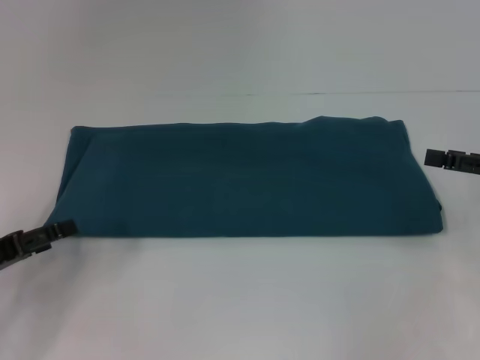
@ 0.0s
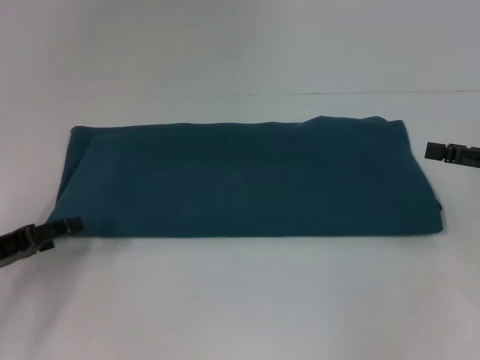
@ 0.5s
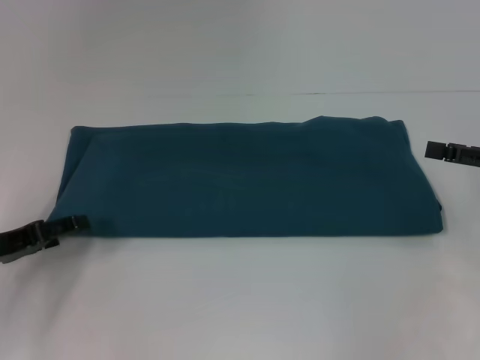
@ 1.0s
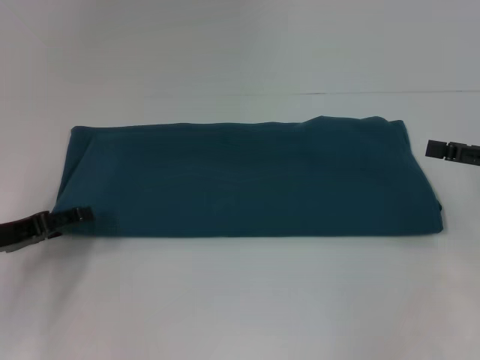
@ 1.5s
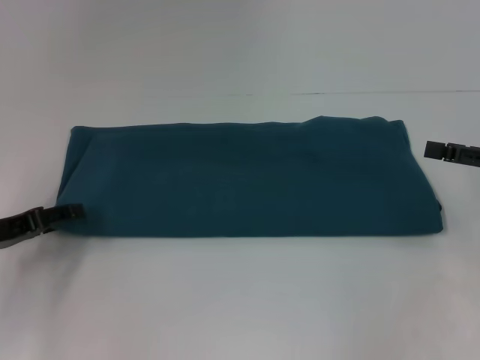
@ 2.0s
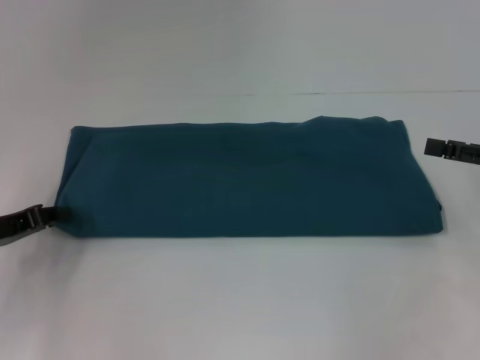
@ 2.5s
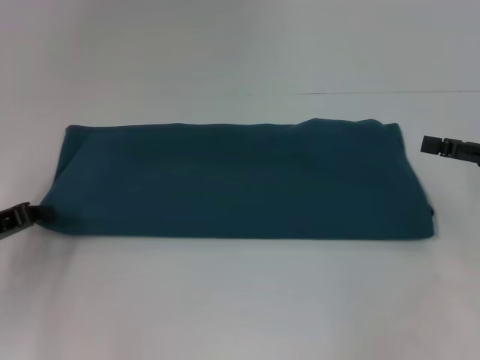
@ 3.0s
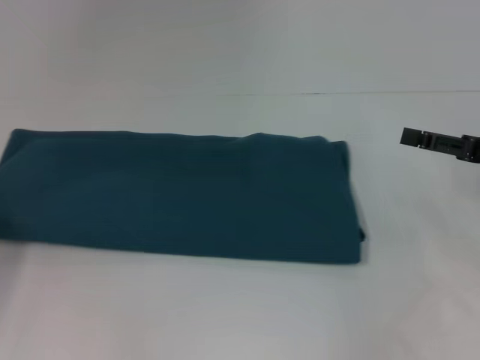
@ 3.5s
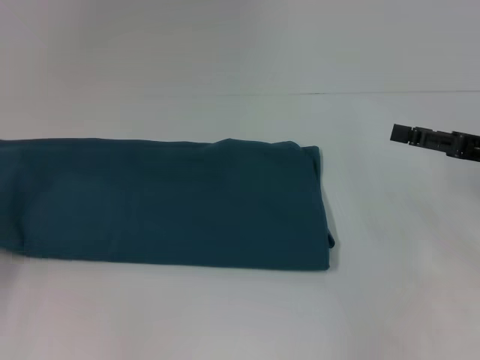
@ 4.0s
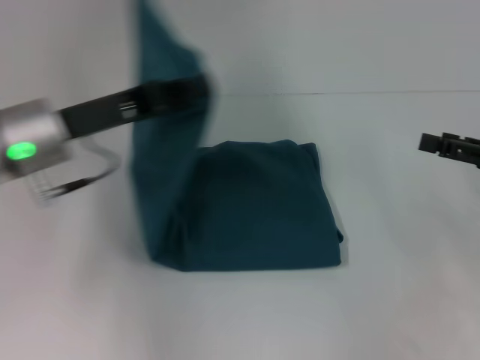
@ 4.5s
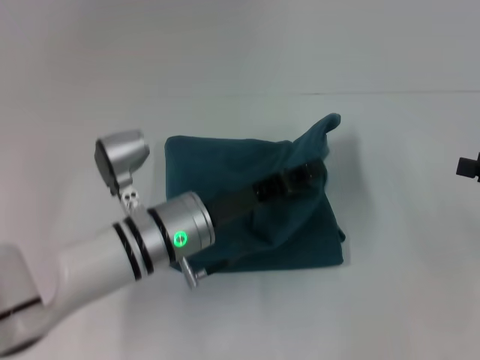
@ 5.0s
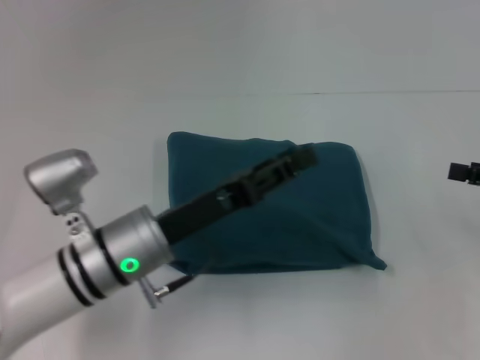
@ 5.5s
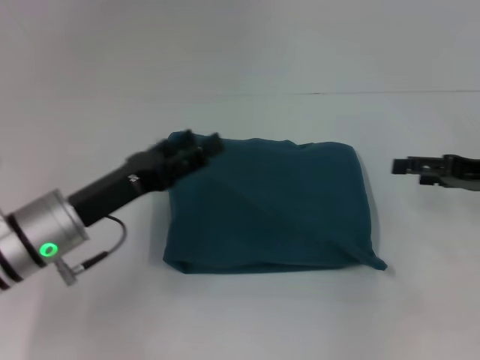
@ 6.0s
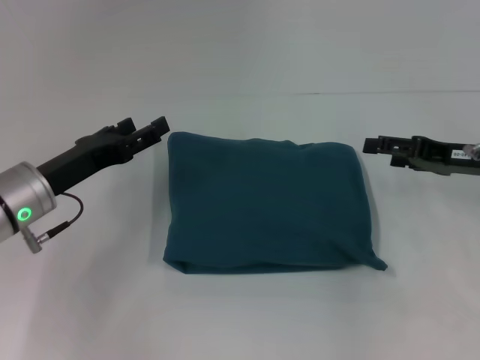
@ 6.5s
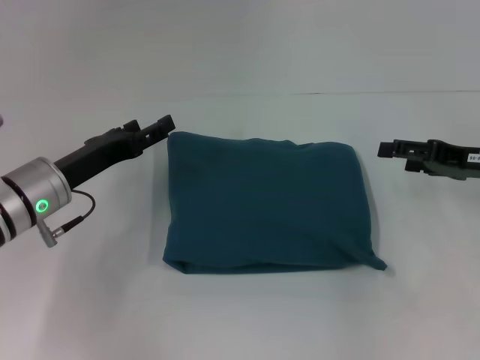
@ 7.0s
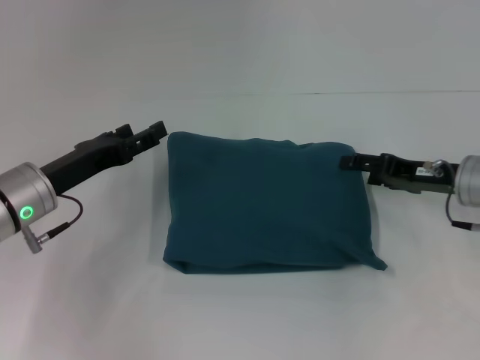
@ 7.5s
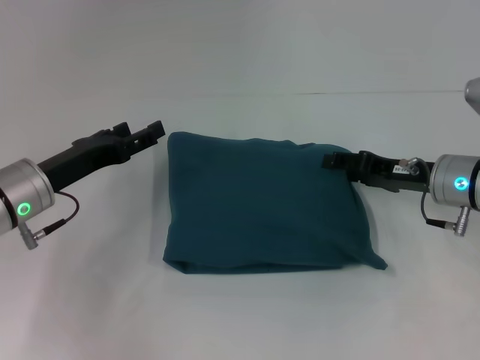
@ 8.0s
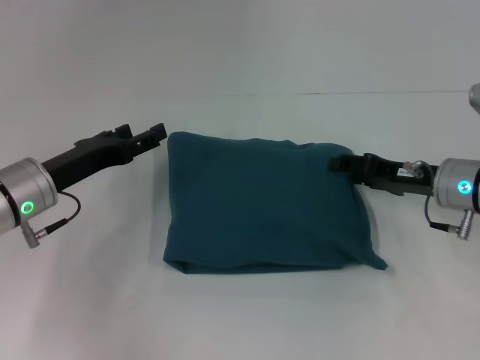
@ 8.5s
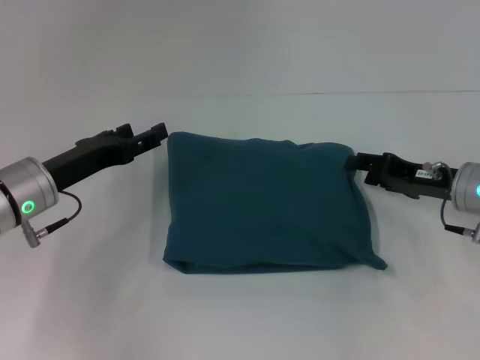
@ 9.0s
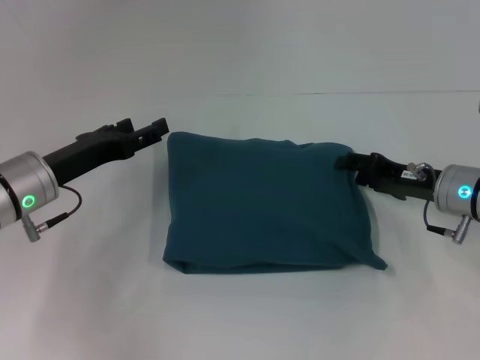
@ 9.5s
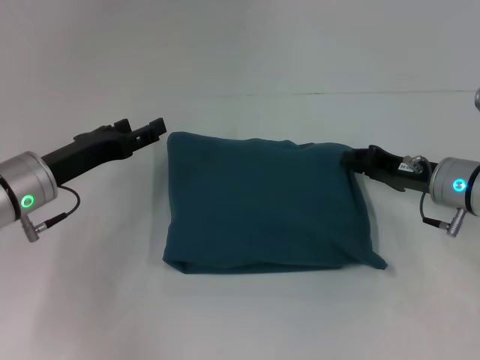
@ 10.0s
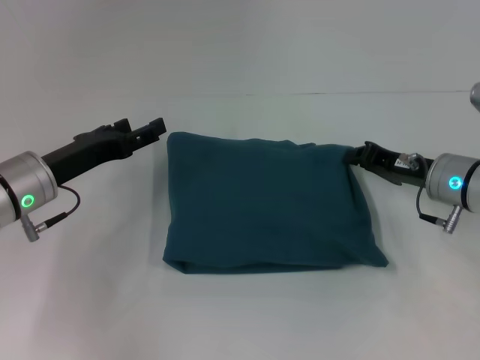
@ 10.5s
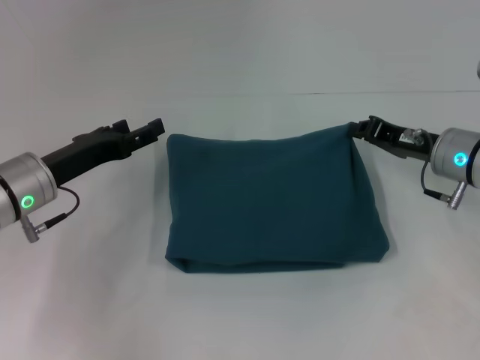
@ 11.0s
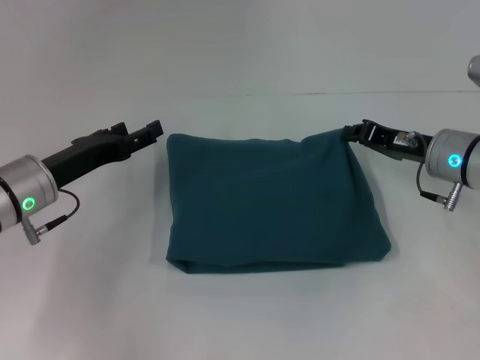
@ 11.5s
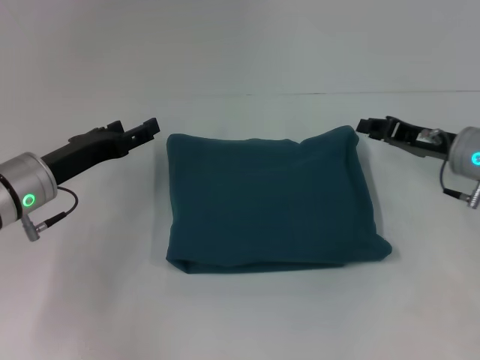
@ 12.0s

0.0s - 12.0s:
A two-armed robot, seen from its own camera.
Step, 0.0s - 5.0s: Fold the clothes to the left.
0.0s - 2.0s: The left gripper moves about 5 cm.
2.0s - 4.0s: The left gripper goes about 10 cm to the left, and closes up.
4.0s - 6.0s: The left gripper shifts approximately 20 cm to the right, and opens its fingers.
6.0s - 8.0s: The left gripper ends up some 5 cm from where it was; the right gripper is displaced to the left by about 10 cm.
8.0s - 10.0s: The right gripper closes up.
10.0s - 12.0s: The right gripper closes.

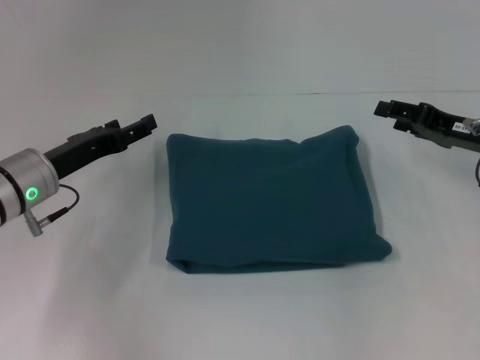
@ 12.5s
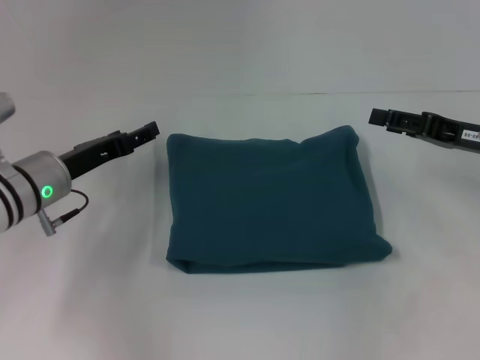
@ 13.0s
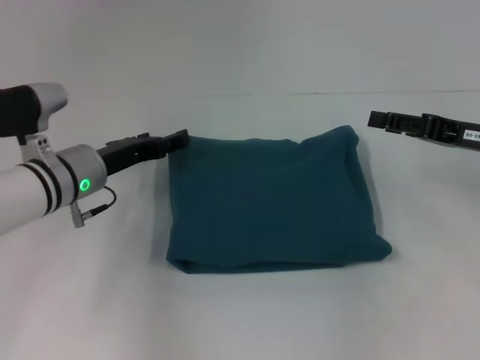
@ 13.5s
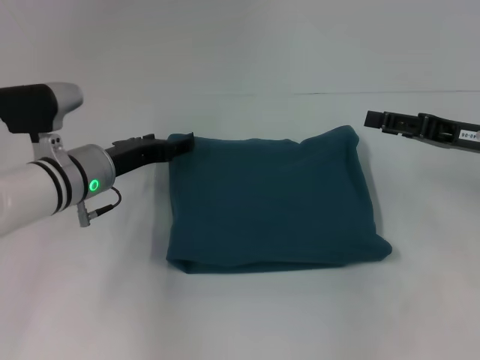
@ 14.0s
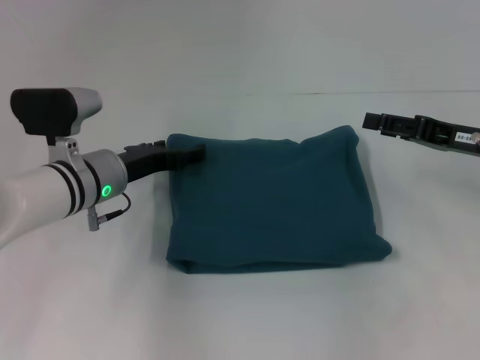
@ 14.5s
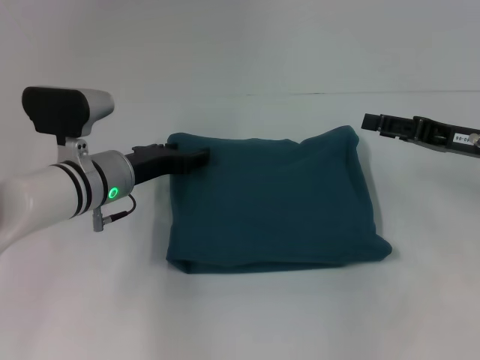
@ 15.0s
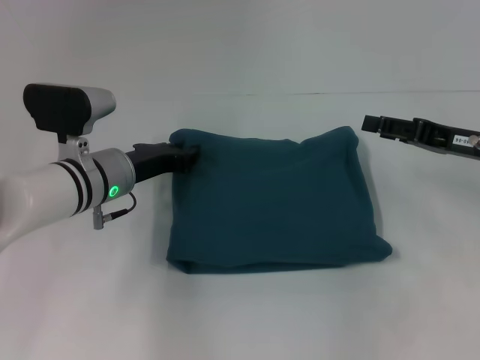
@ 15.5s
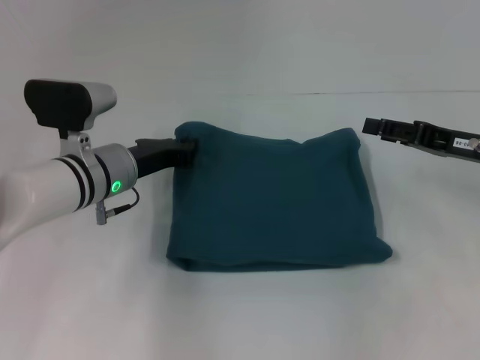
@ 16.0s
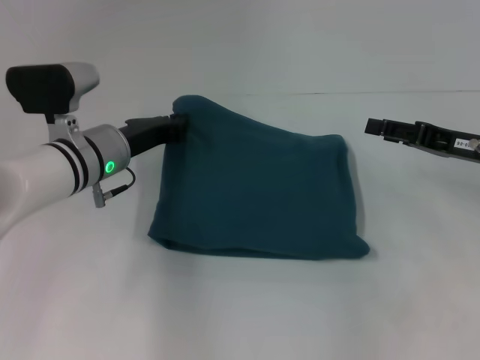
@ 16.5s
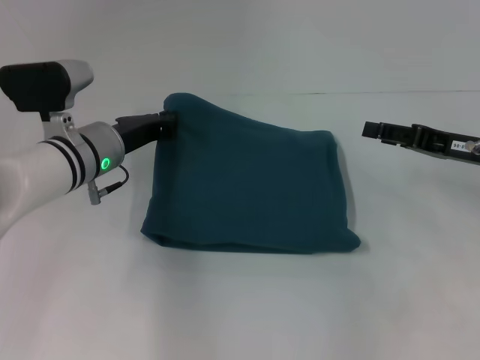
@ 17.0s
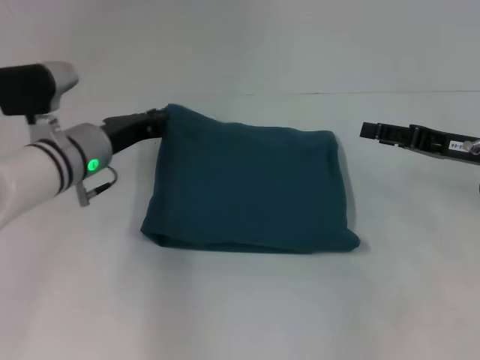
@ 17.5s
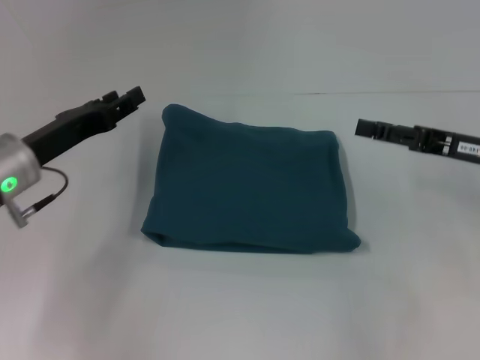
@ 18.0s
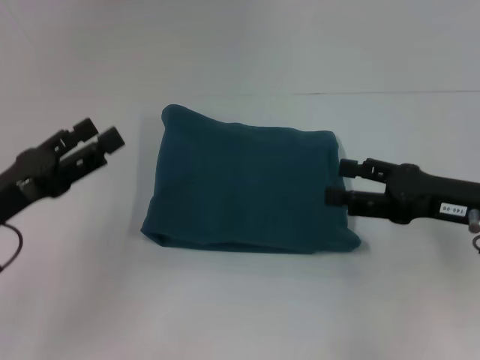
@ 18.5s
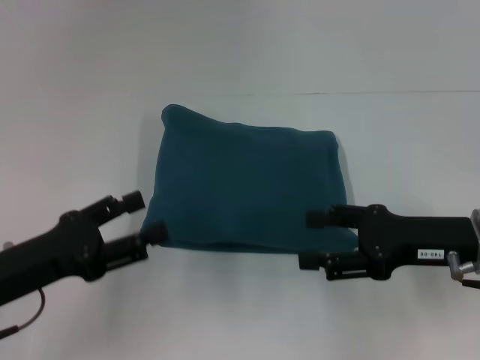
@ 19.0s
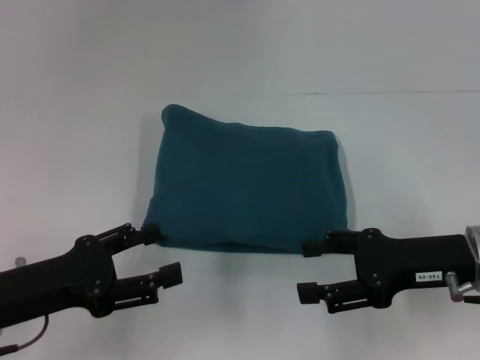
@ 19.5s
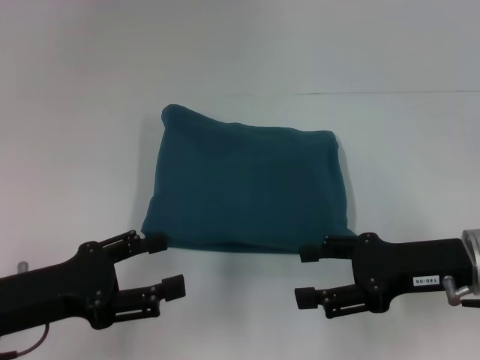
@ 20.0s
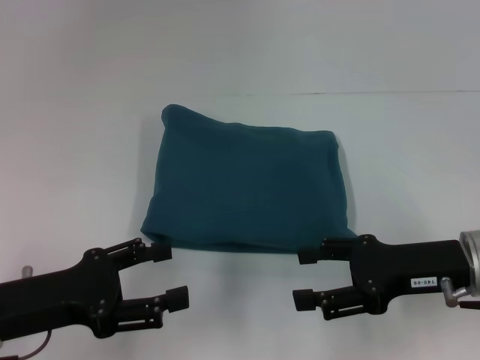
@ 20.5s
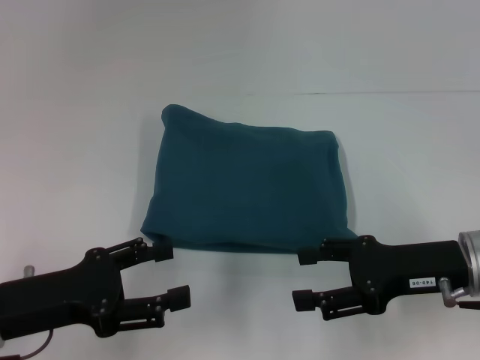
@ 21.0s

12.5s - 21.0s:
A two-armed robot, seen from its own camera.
12.5s - 14.5s: The left gripper shifts some 5 cm to the right.
14.5s - 16.5s: The left gripper closes up.
16.5s - 19.0s: The right gripper shifts roughly 10 cm backward and to the left. Meanwhile the left gripper moves backward and to the left, about 20 cm, and opens.
19.0s - 21.0s: The grippers move only a little.
